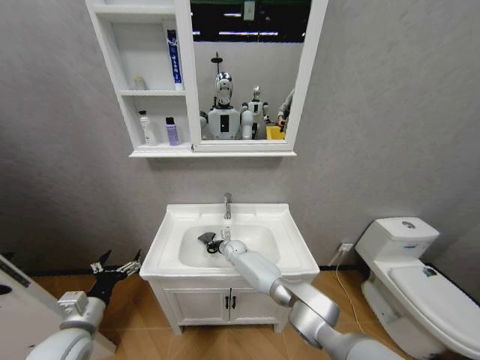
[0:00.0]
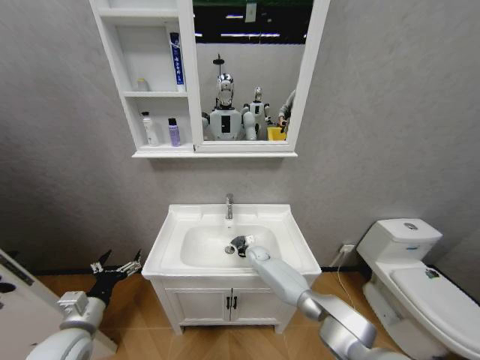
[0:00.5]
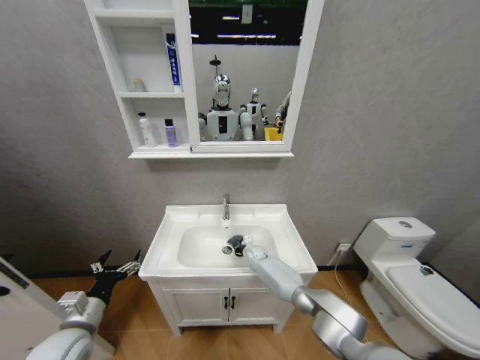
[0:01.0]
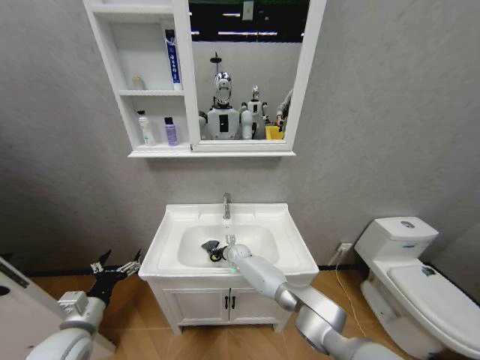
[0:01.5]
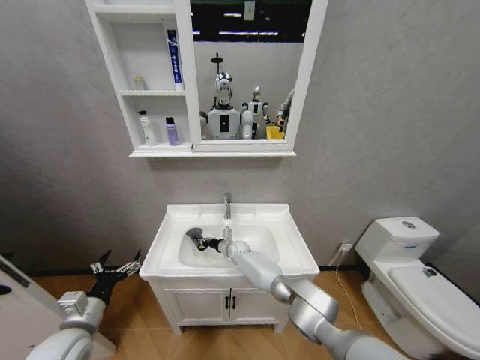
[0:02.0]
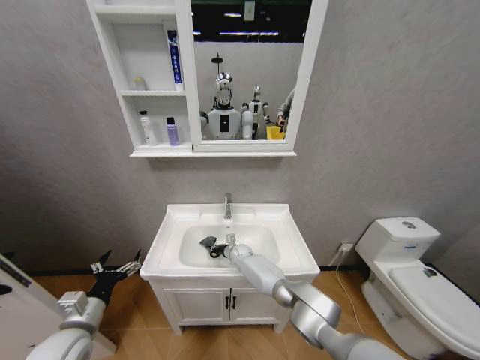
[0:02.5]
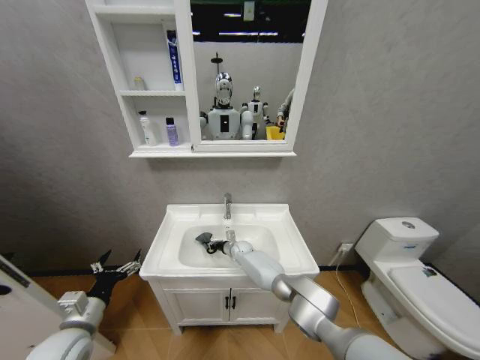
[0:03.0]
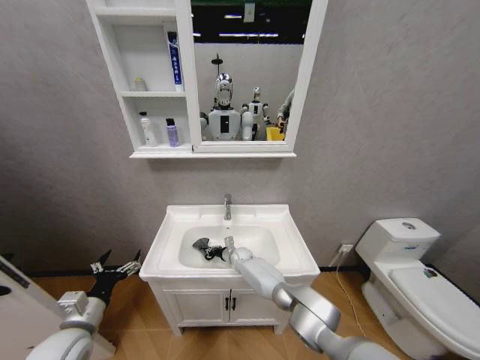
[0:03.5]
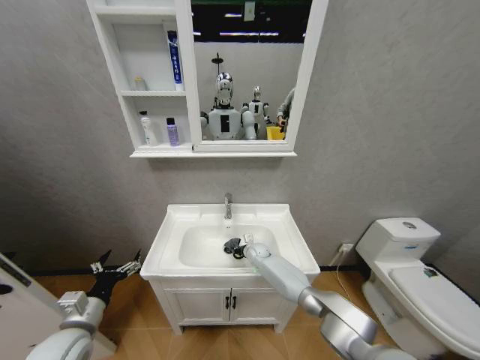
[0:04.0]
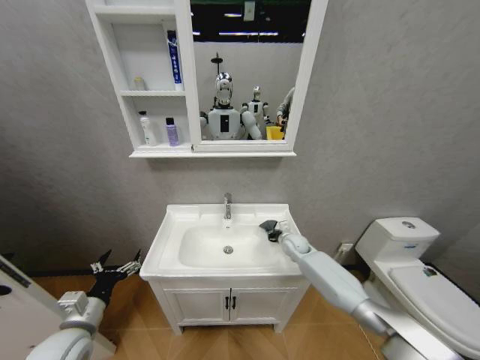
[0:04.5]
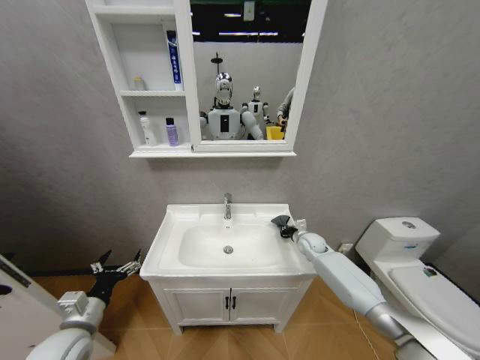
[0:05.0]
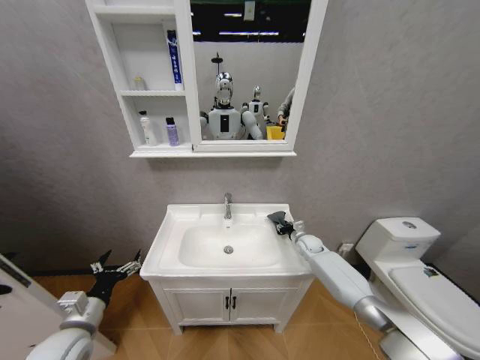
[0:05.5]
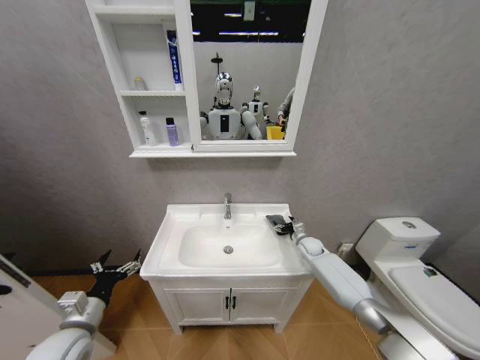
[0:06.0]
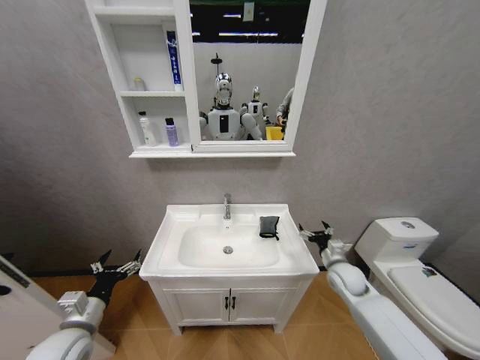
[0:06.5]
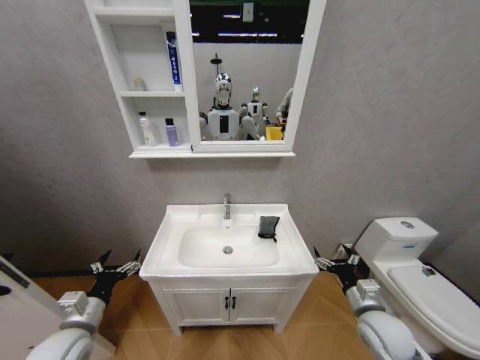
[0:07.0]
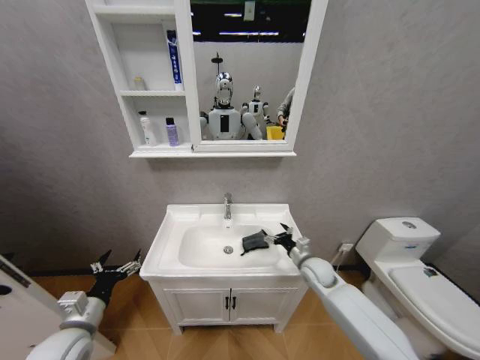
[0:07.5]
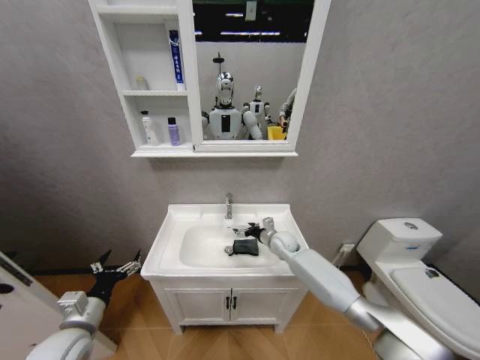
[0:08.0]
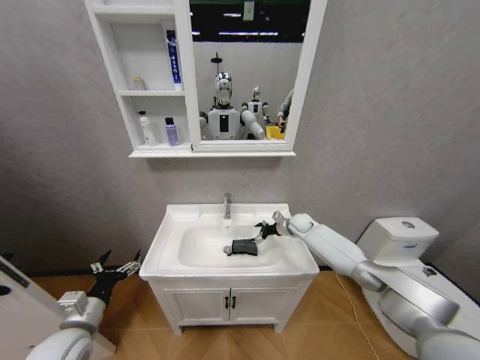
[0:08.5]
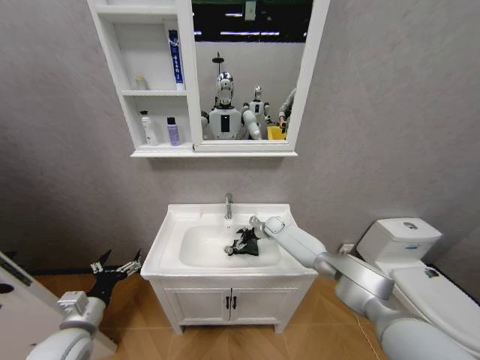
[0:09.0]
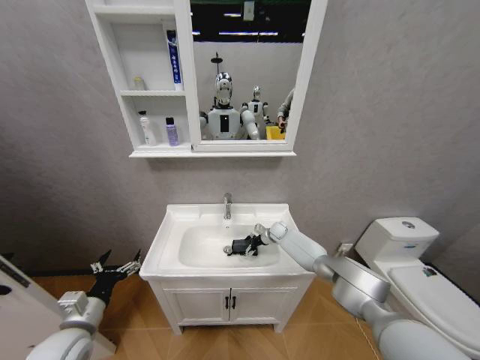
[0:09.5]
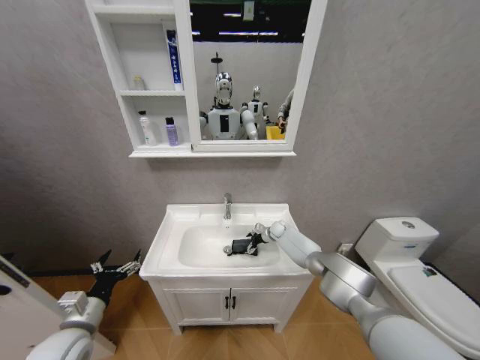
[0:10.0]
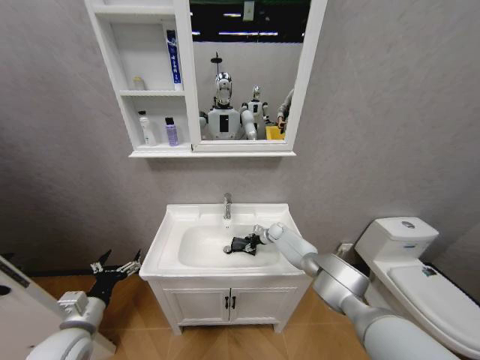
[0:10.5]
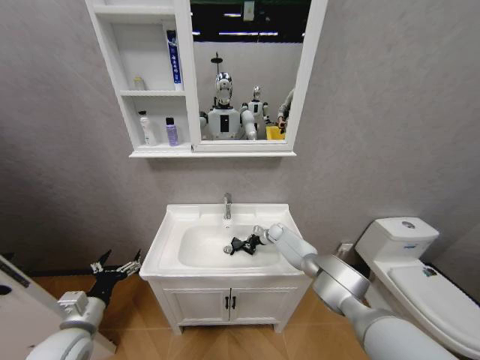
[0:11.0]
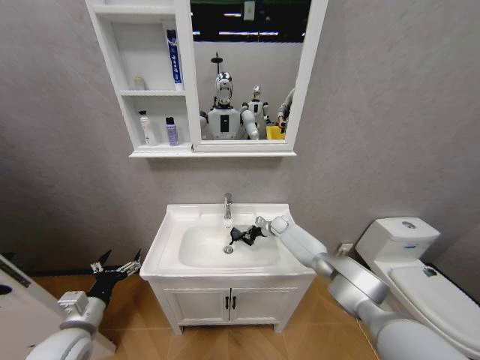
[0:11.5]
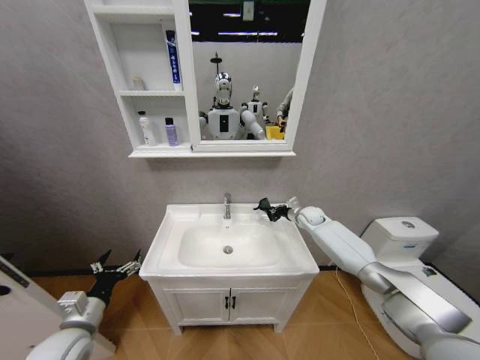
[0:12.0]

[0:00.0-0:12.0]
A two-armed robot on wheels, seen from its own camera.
Task of the whole recording: Move facial cleanser and shampoo from washbasin to cabinet, then wipe washbasin with towel.
0:00.0 to 0:02.0: The right gripper moves some 10 cm to the right and comes back.
0:02.0 to 0:04.0: The right gripper heads to the right, covering approximately 10 cm.
0:04.0 to 0:06.0: The right gripper is displaced to the right by some 20 cm, and opens its fingers.
0:06.0 to 0:08.0: The right gripper is displaced to the left and upward by approximately 15 cm, and travels backward and back again, some 30 cm each way.
0:08.0 to 0:10.0: The right gripper heads forward and downward, covering roughly 15 cm.
0:10.0 to 0:12.0: The right gripper moves upward and to the right, some 15 cm, and closes up.

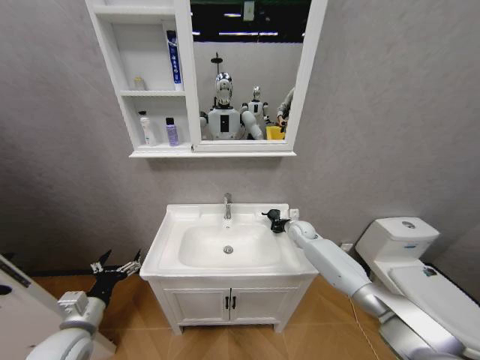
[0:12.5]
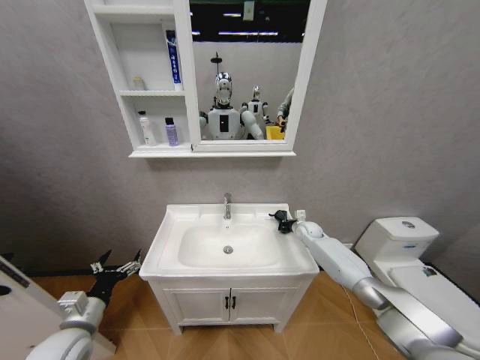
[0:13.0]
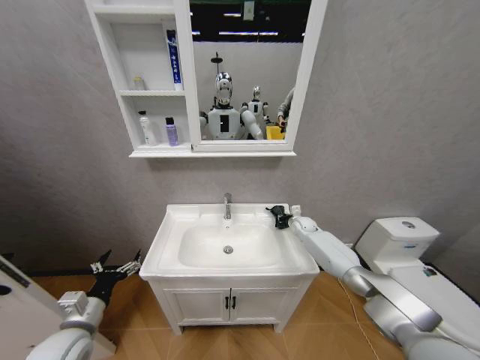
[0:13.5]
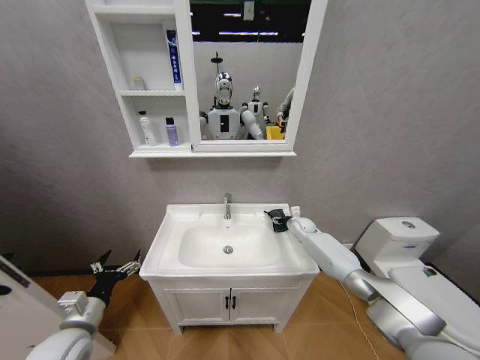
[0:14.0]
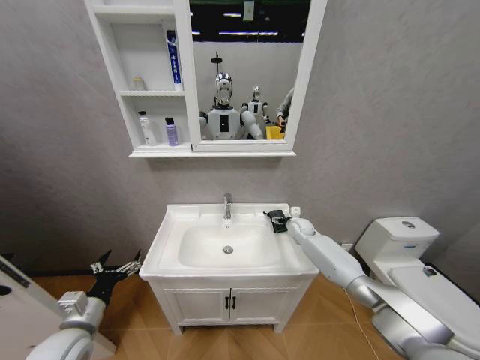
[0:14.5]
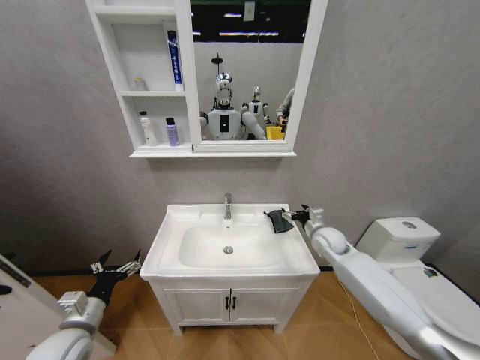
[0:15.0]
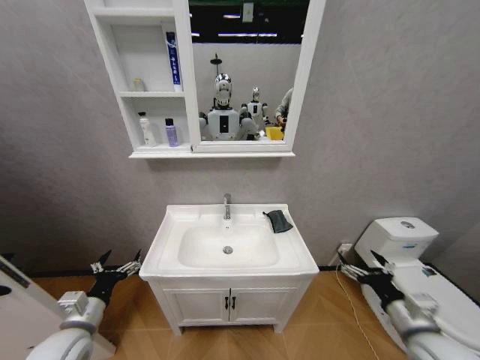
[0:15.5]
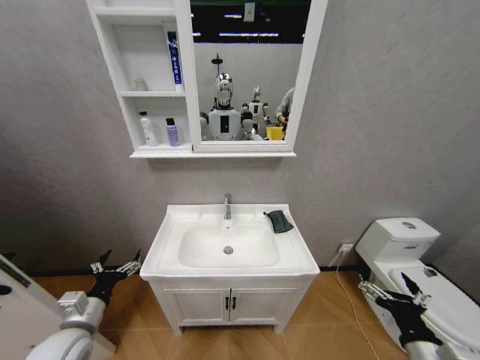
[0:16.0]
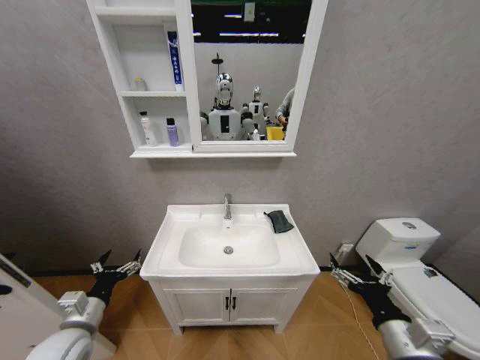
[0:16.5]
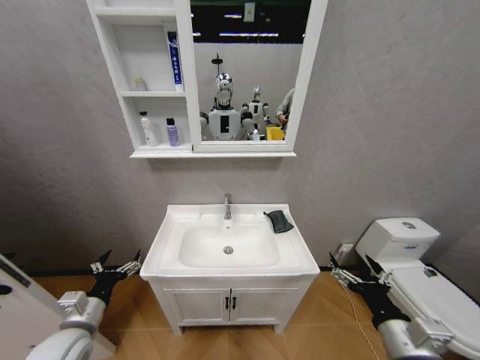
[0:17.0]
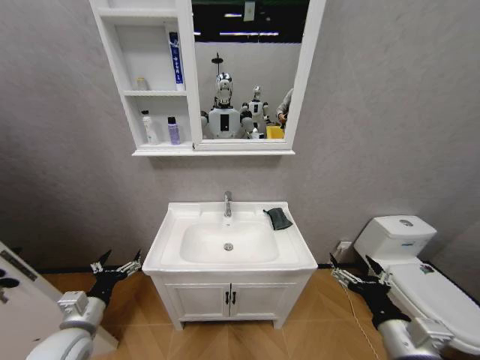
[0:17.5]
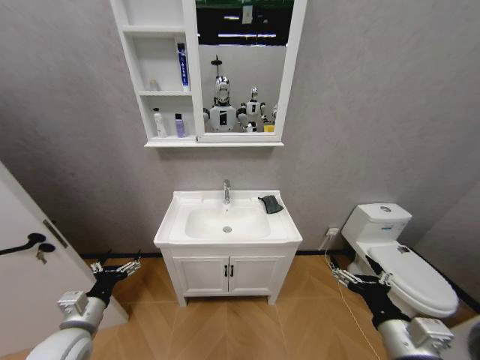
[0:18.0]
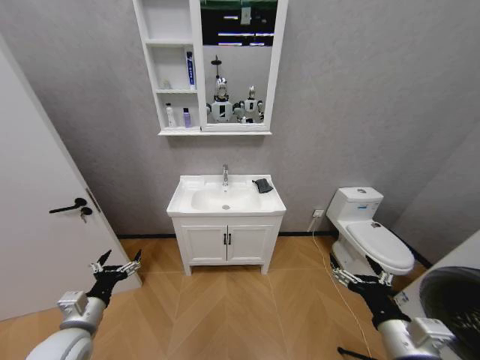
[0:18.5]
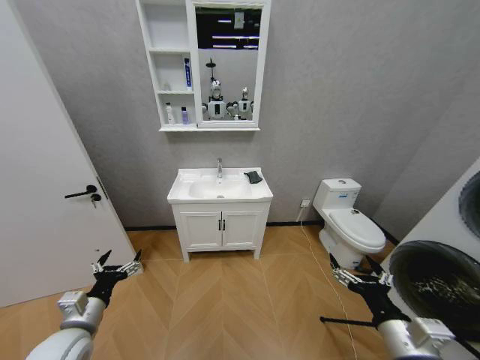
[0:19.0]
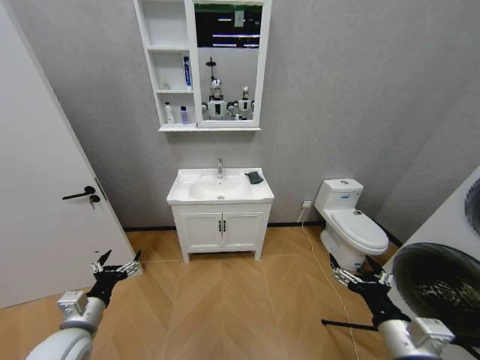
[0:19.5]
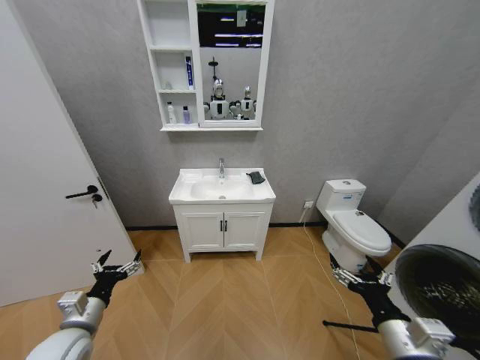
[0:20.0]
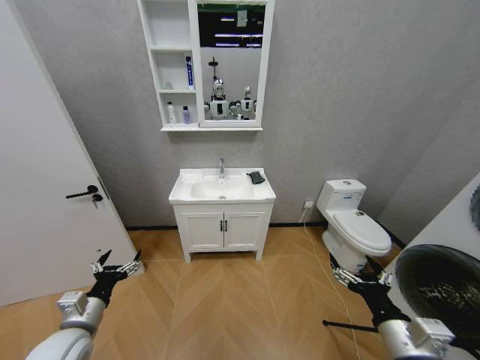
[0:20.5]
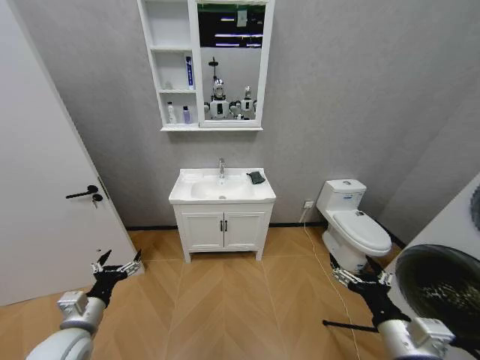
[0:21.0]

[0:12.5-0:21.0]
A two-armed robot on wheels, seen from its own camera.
Task of the whole recording: Move facial cleanser and shampoo from washbasin to cabinet, then wipe washbasin with towel.
0:12.5 to 0:14.5: The right gripper opens.
0:14.5 to 0:16.5: The right gripper heads backward, covering roughly 50 cm.
0:19.0 to 0:21.0: Neither gripper changes place.
